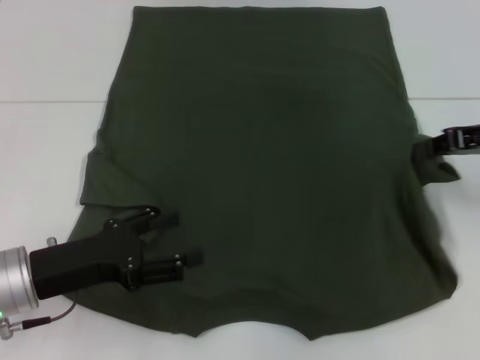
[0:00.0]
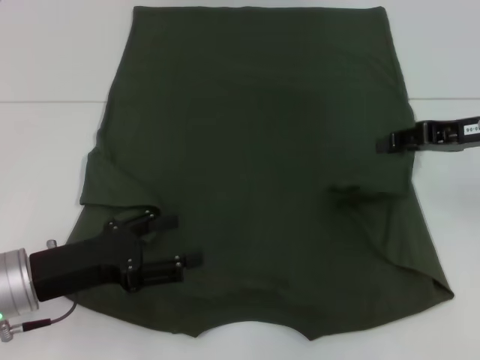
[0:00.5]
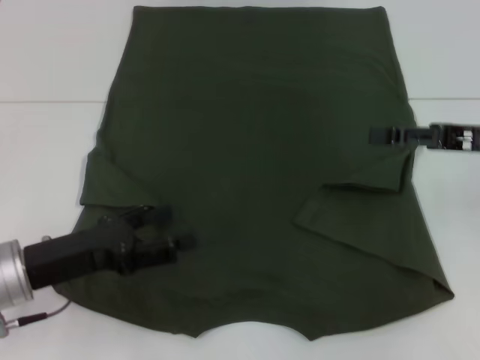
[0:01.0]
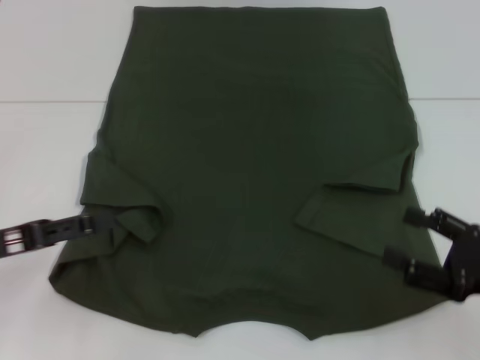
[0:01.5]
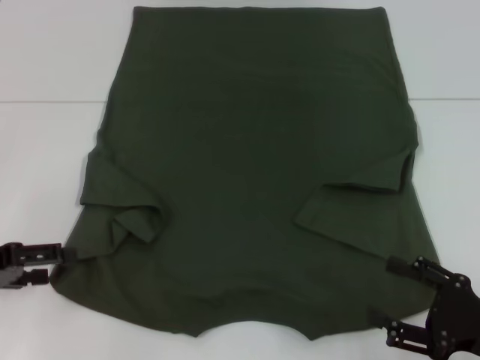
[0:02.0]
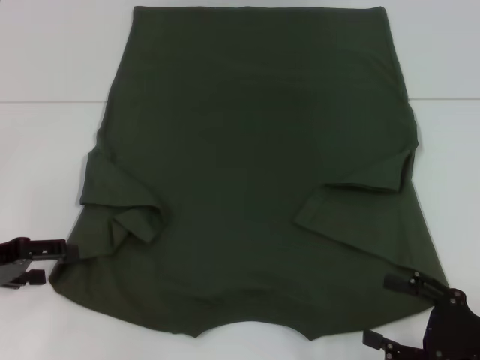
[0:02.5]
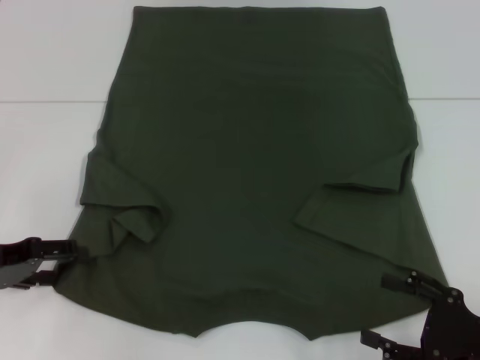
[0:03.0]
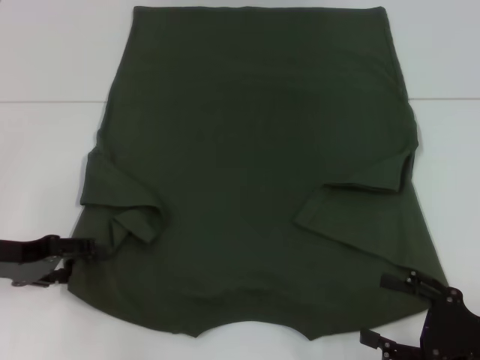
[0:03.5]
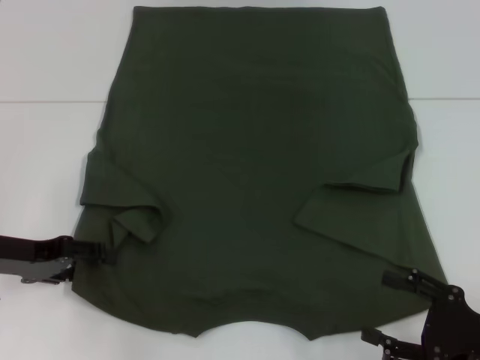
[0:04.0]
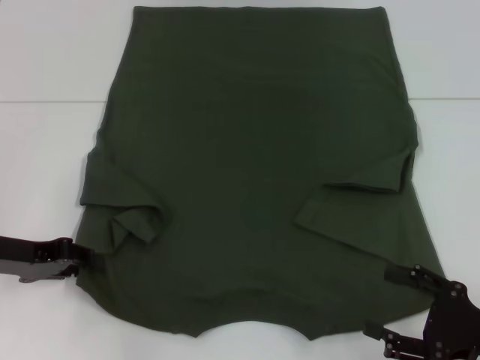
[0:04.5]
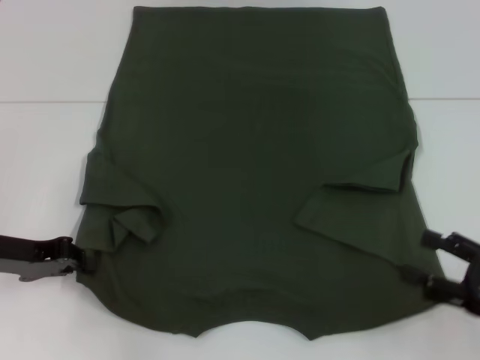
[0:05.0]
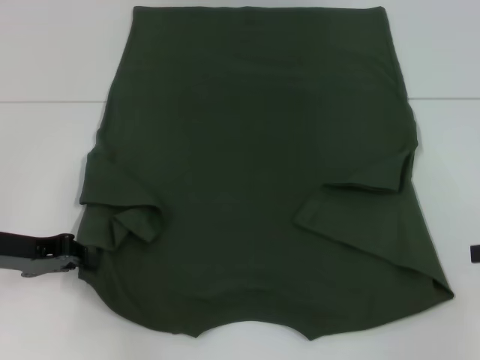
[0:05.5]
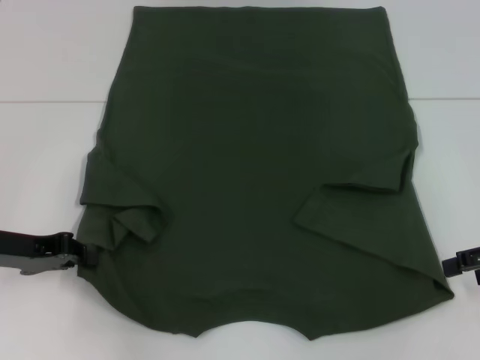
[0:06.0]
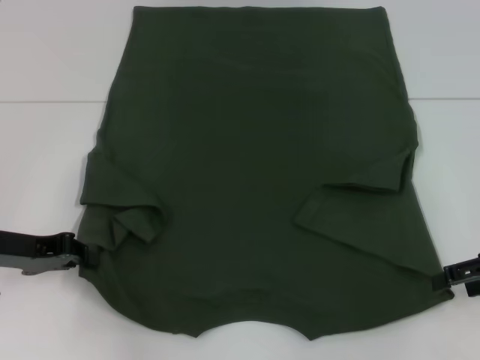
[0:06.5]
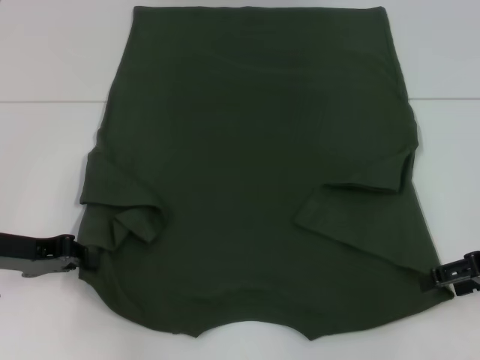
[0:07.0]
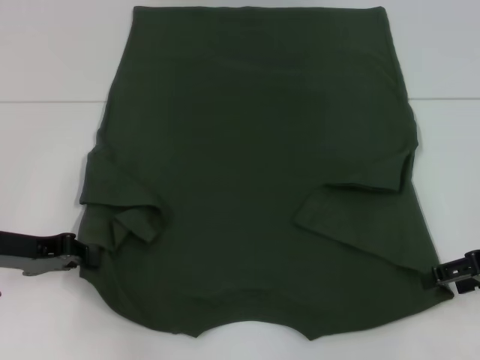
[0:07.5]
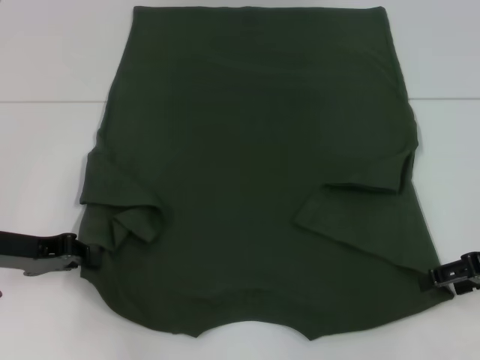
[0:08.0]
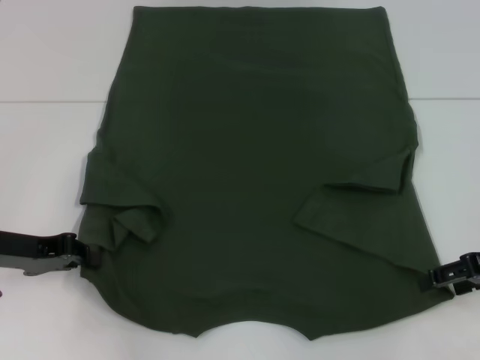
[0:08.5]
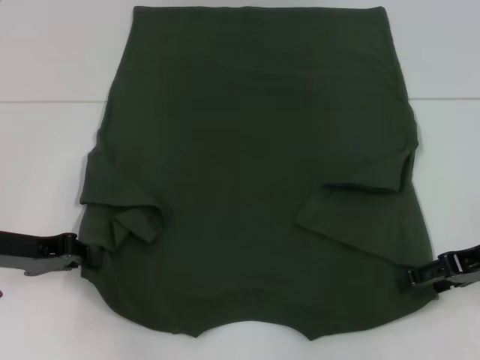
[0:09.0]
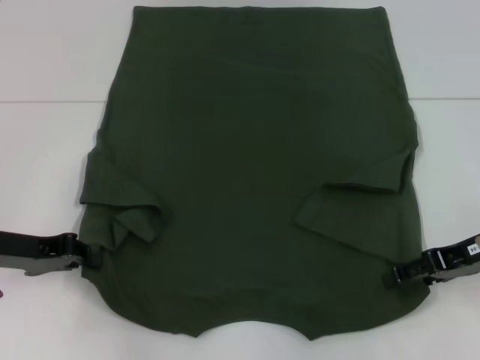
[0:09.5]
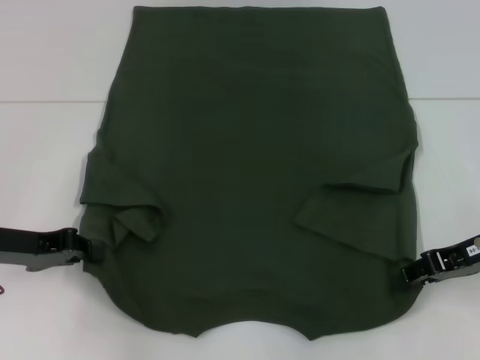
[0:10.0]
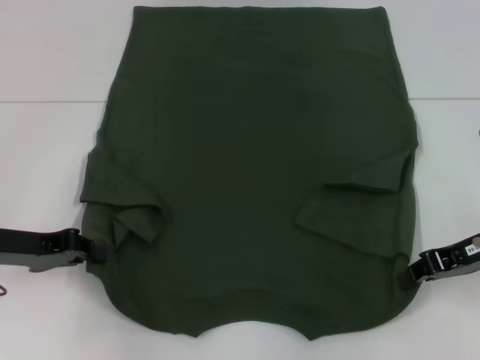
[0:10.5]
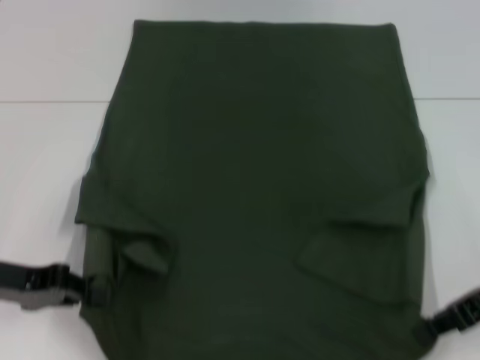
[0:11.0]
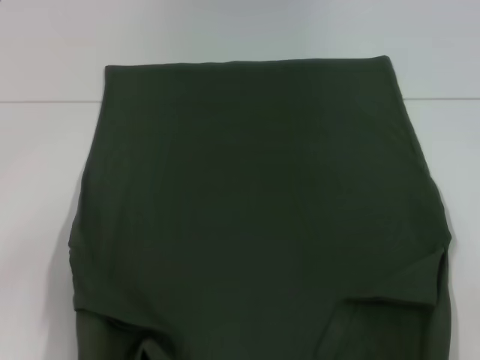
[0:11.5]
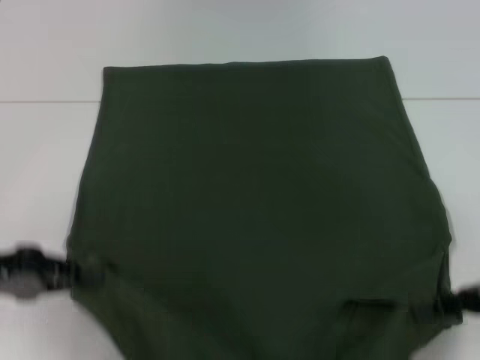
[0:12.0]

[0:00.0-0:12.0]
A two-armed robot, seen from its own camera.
Step, 1.0 to 4.5 s: Grab the bottom left corner with your left hand.
Step, 5.0 to 10.5 s: Grab the bottom right corner with your right hand.
0.0 to 2.0 s: The right gripper is displaced backward and downward by about 25 cm, and opens up. Meanwhile the left gripper goes some 10 cm to the left.
2.0 to 4.0 s: The left gripper moves approximately 5 cm.
4.0 to 6.0 s: The right gripper heads forward, upward and to the right, covering approximately 15 cm. The left gripper closes its fingers.
6.0 to 8.0 s: The grippers make only small movements.
8.0 to 10.0 s: The right gripper closes its fingers.
10.0 to 12.0 s: Both grippers travel together backward, about 5 cm. The right gripper closes up.

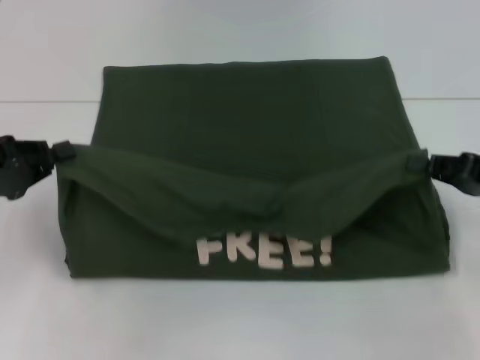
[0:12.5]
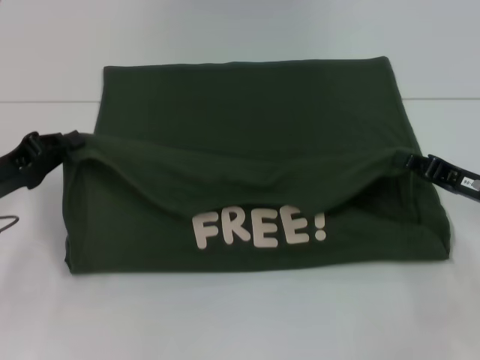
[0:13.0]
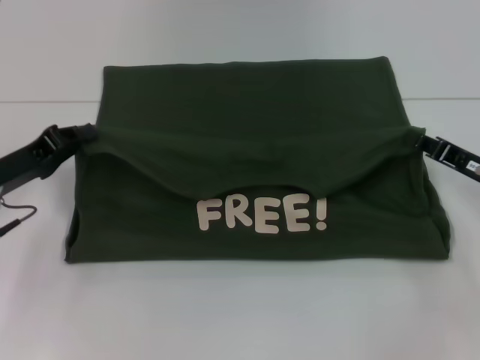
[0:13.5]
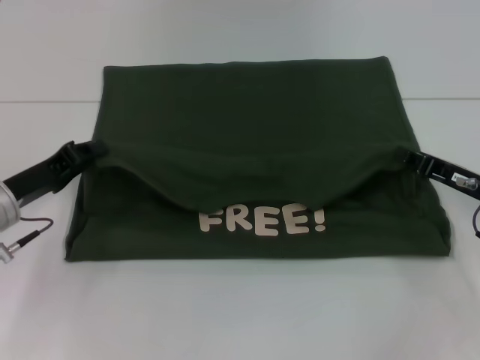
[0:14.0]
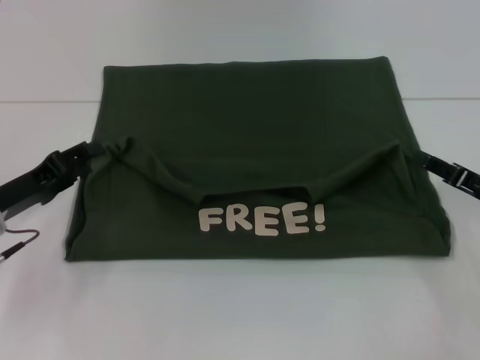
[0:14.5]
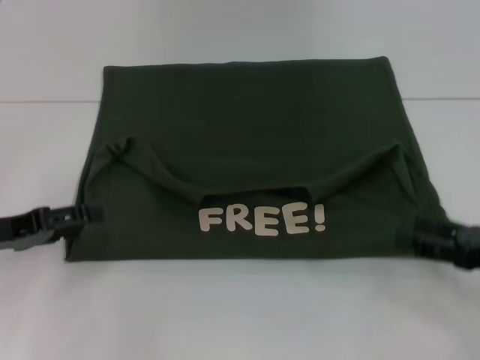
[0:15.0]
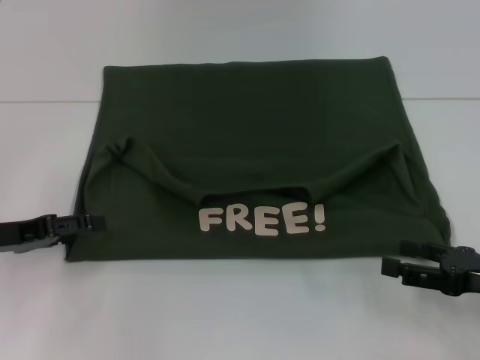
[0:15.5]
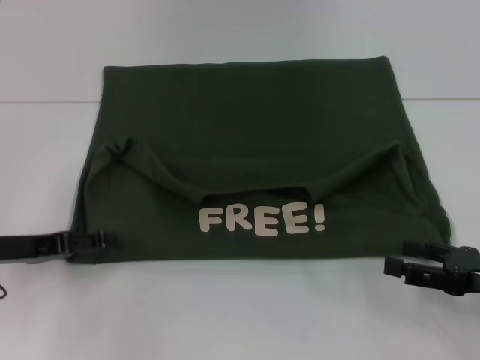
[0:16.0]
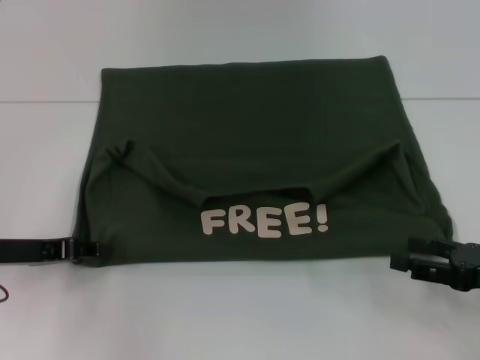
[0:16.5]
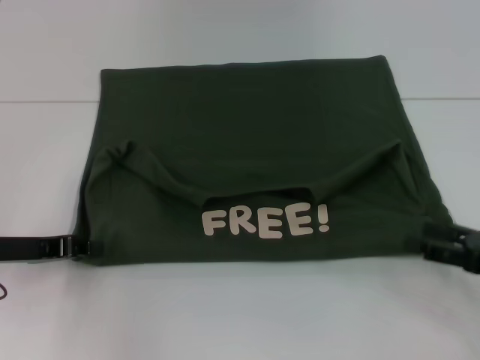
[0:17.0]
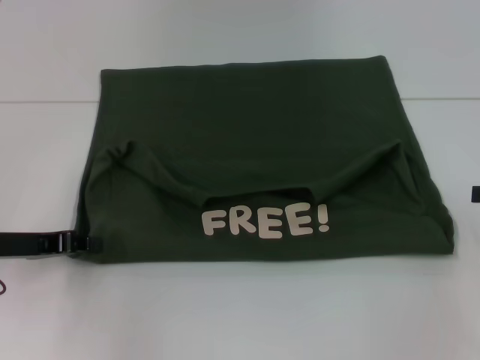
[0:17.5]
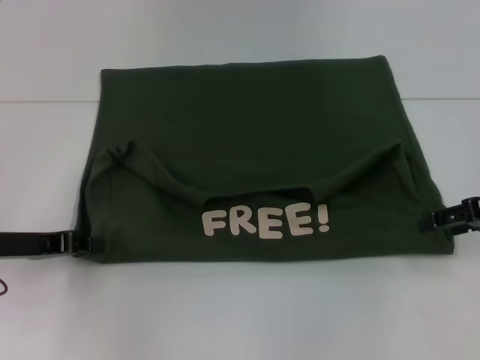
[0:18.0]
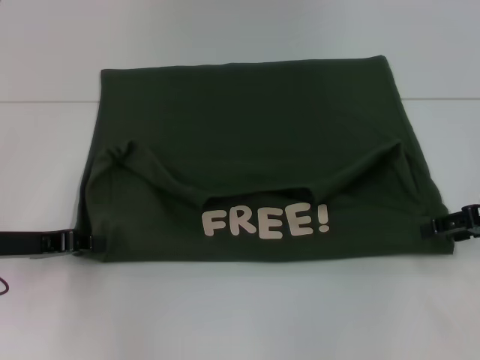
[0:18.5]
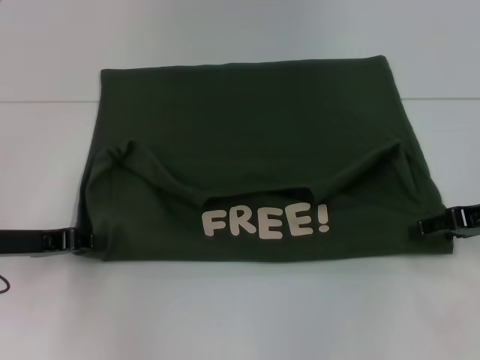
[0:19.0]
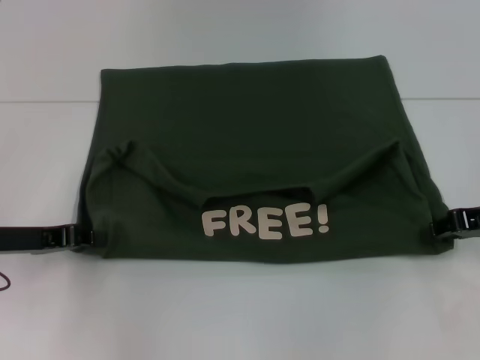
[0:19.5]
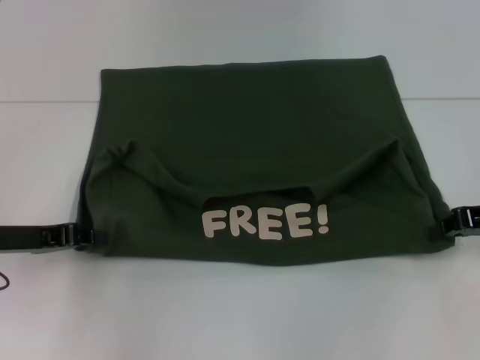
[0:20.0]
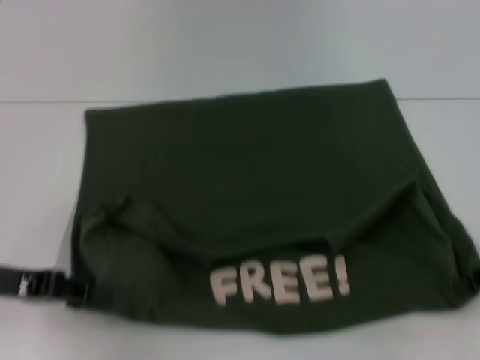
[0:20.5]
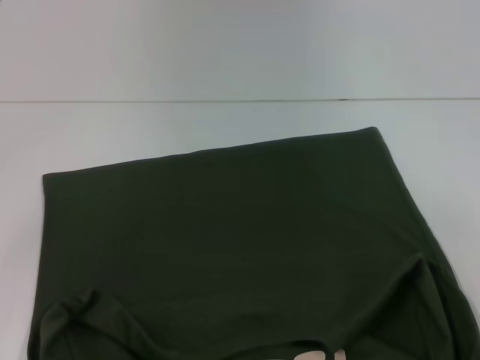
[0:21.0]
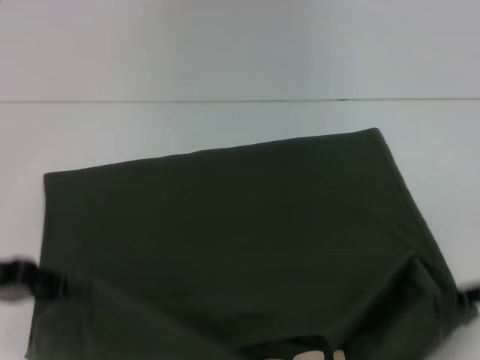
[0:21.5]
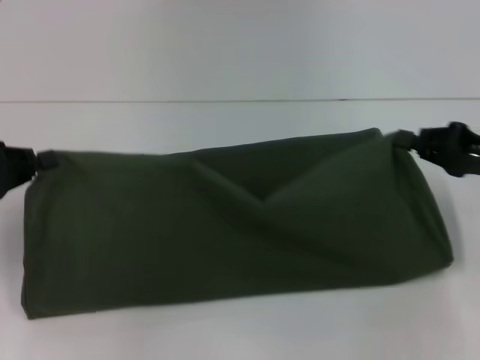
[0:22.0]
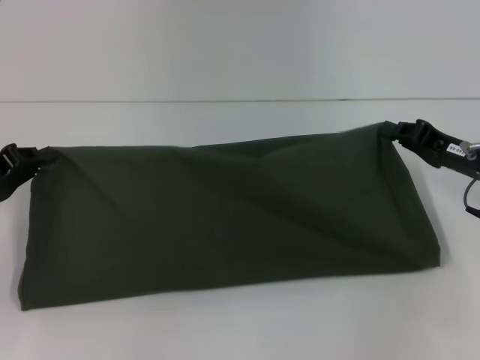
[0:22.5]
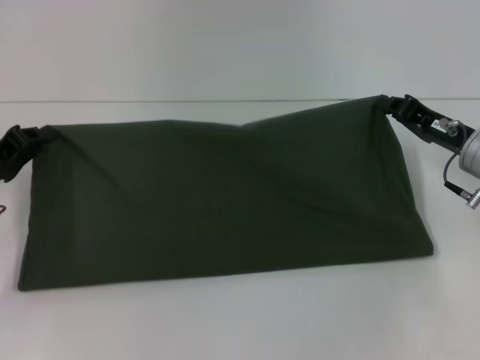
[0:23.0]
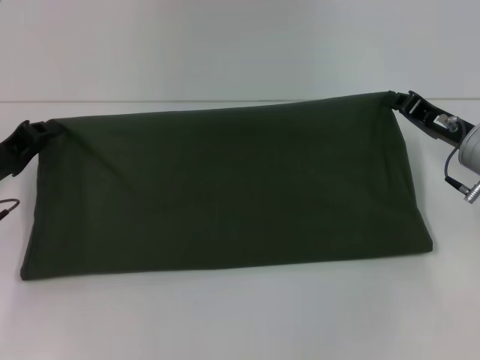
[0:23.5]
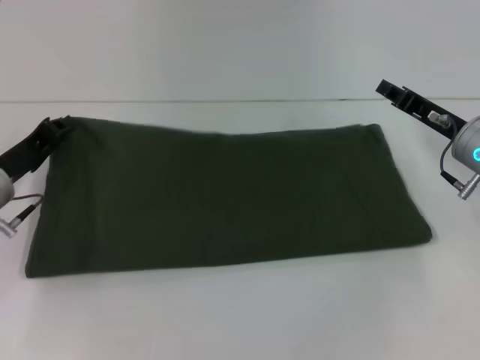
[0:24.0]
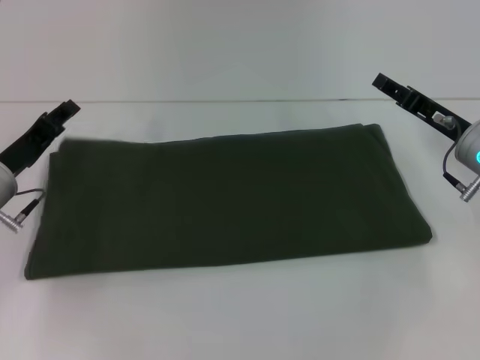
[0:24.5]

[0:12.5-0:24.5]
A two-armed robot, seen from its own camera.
Step, 12.5 to 14.5 s: Fold the clothes with your left hand.
Step, 12.5 to 14.5 s: Fold the clothes with your right hand.
Step, 15.0 to 20.5 s: Pull the clothes with your left hand.
Step, 15.0 to 20.5 s: Pull the clothes with your right hand.
Step, 21.0 to 24.5 s: Fold the clothes with your right hand.
12.5 to 14.5 s: The two grippers go some 5 cm downward. The left gripper opens.
14.5 to 16.5 s: The right gripper is displaced backward by approximately 5 cm, and opens up.
16.5 to 18.5 s: The left gripper closes; the right gripper heads forward and upward, covering roughly 10 cm.
18.5 to 20.5 s: The right gripper closes its fingers.
20.5 to 22.5 s: The right gripper moves to the left, roughly 5 cm. The left gripper ends up roughly 5 cm from where it was.
22.5 to 24.5 s: The right gripper opens up, while the left gripper heads to the right, covering some 5 cm, and opens its fingers.

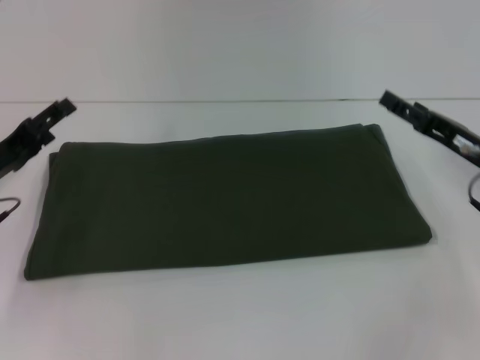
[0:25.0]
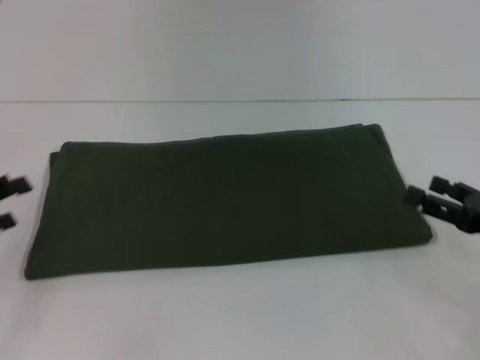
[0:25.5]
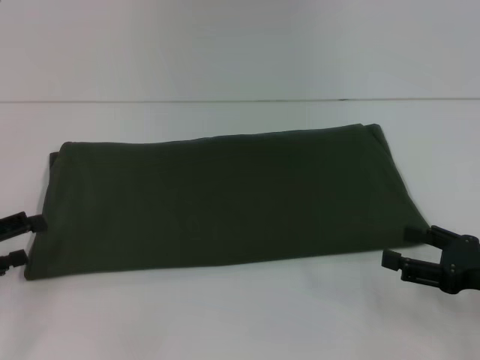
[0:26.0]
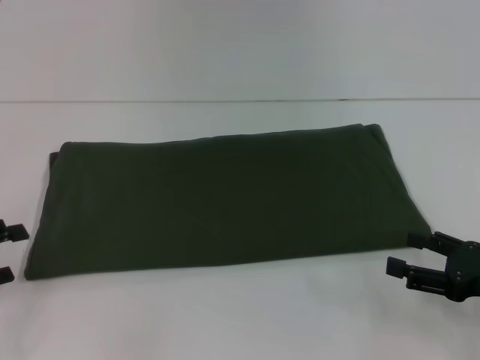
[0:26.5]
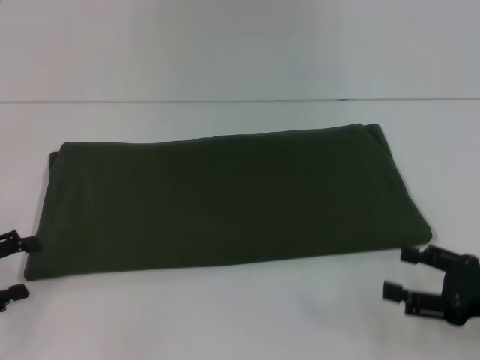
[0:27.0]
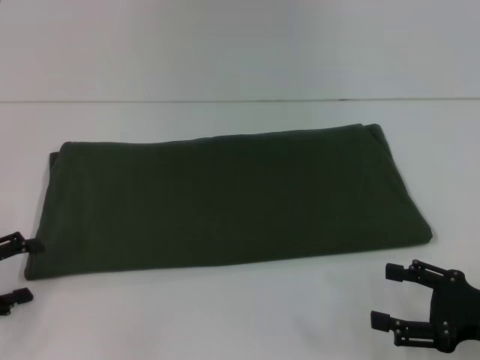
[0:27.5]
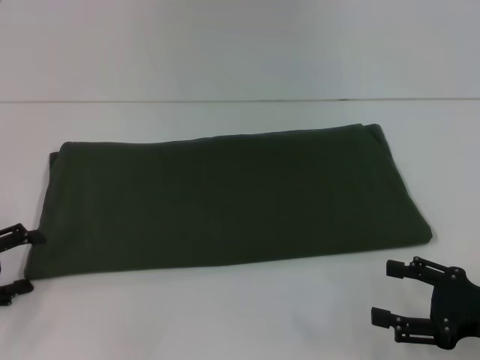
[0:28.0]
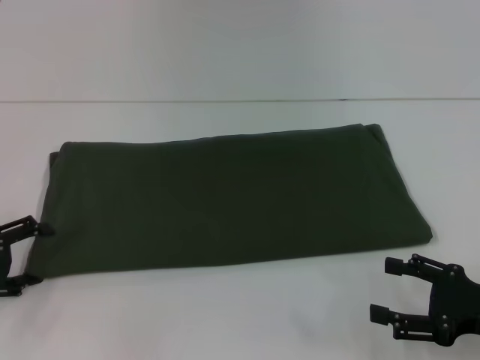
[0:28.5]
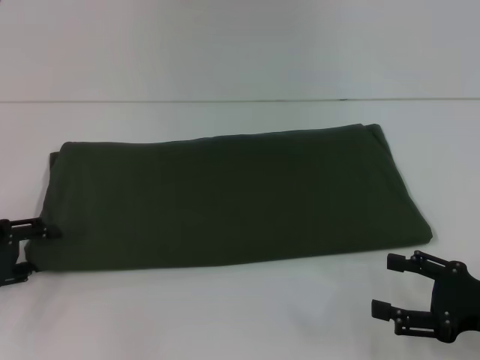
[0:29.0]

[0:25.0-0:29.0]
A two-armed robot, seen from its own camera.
25.0 to 27.0 s: The left gripper shifts approximately 10 cm backward and to the left. The right gripper moves backward, roughly 10 cm.
27.0 to 29.0 s: The grippers move only a little.
